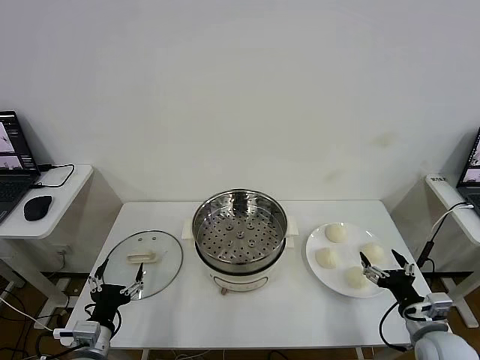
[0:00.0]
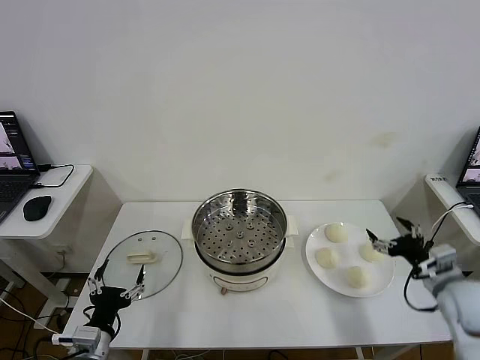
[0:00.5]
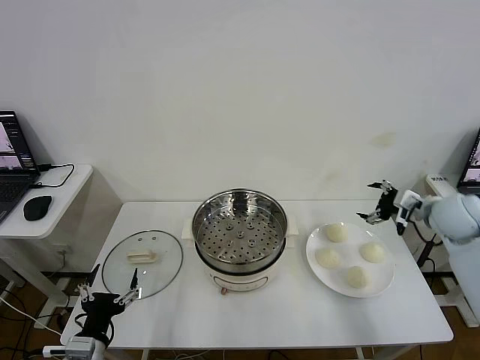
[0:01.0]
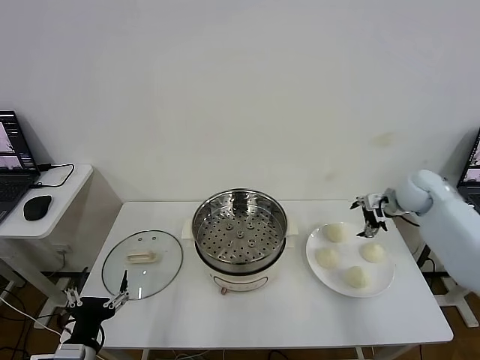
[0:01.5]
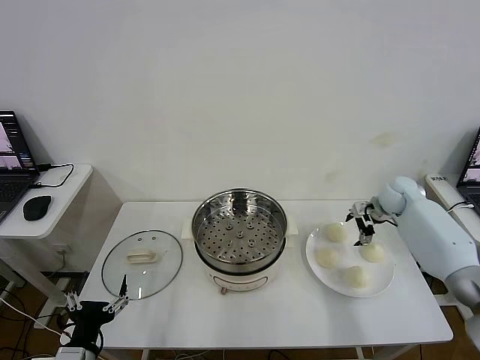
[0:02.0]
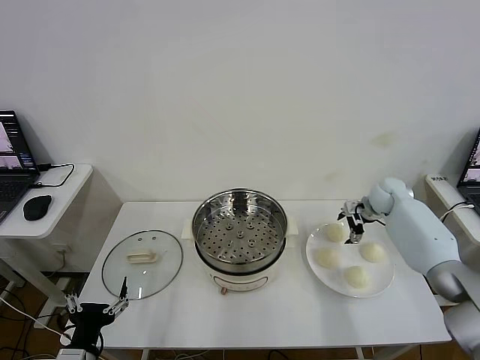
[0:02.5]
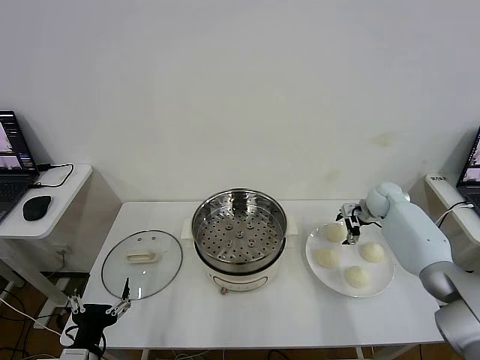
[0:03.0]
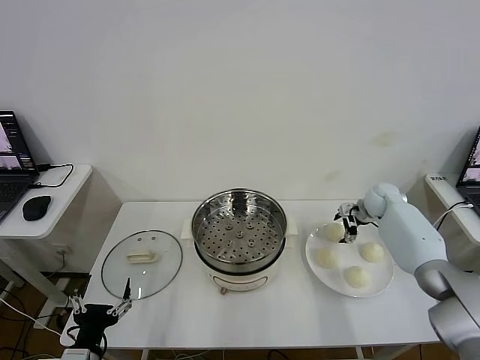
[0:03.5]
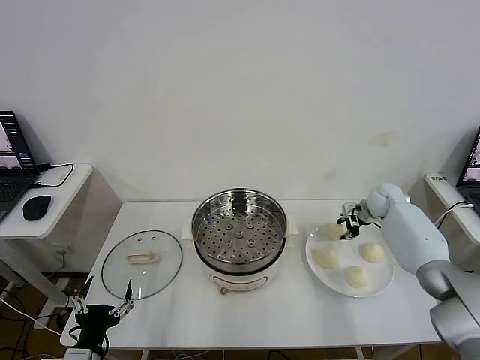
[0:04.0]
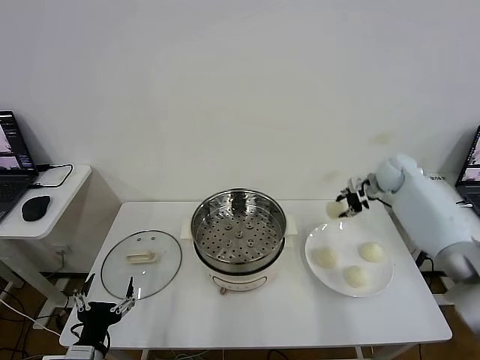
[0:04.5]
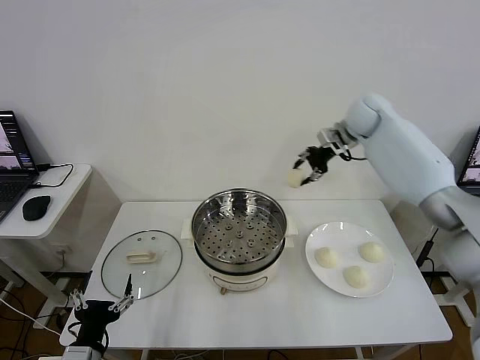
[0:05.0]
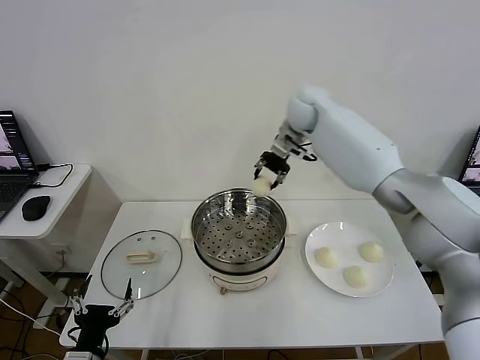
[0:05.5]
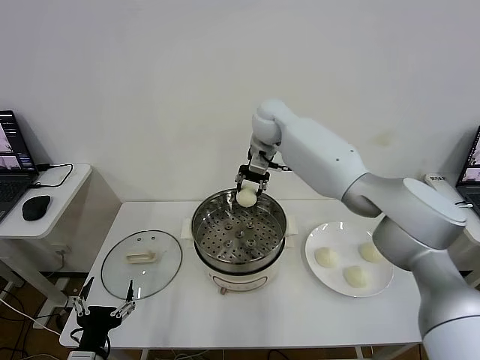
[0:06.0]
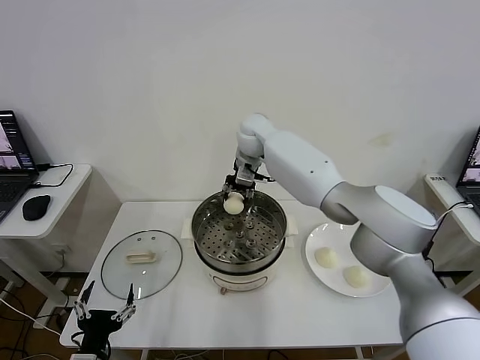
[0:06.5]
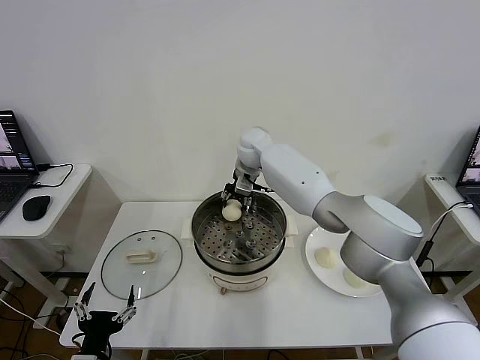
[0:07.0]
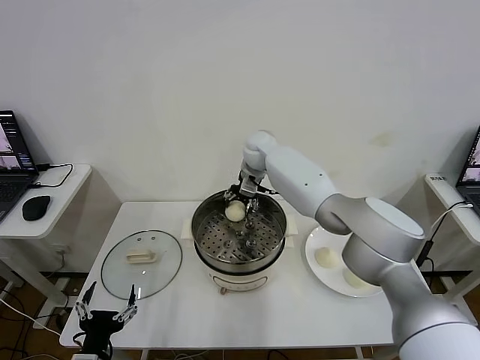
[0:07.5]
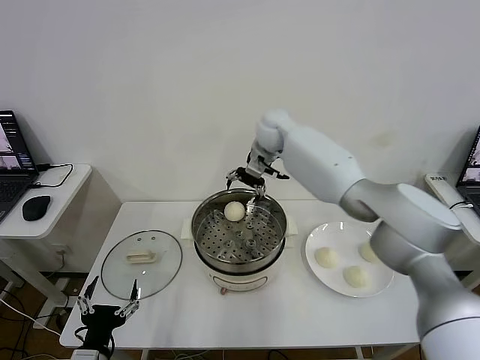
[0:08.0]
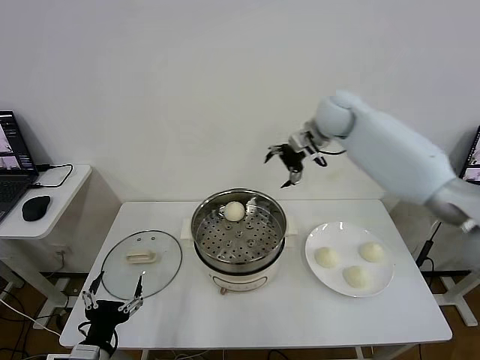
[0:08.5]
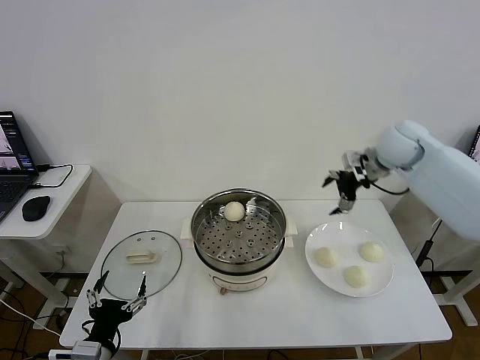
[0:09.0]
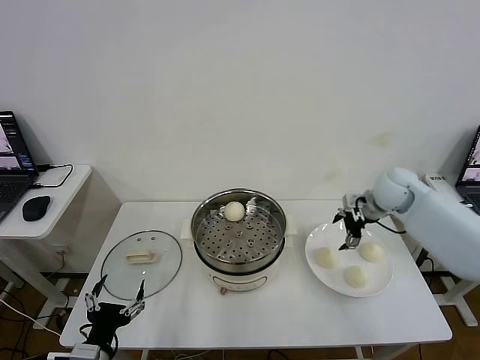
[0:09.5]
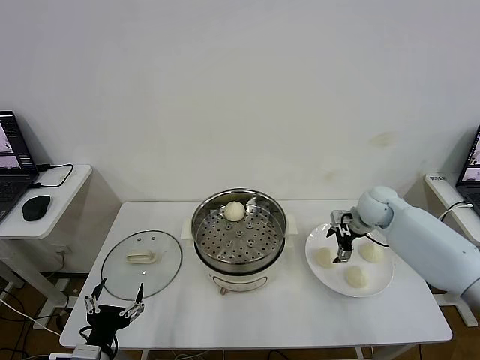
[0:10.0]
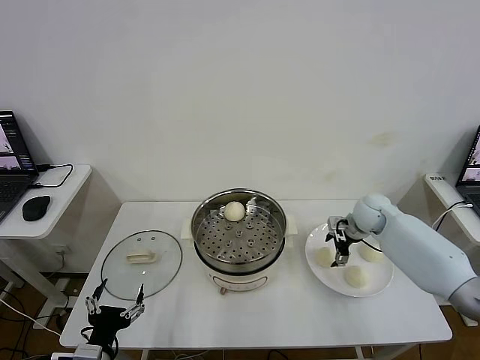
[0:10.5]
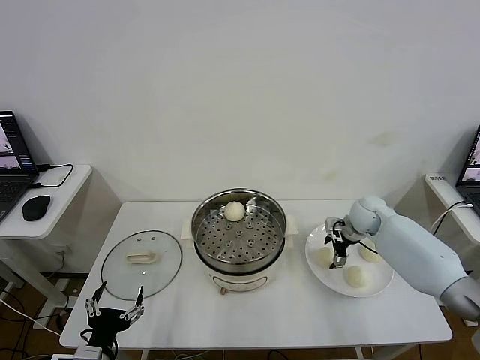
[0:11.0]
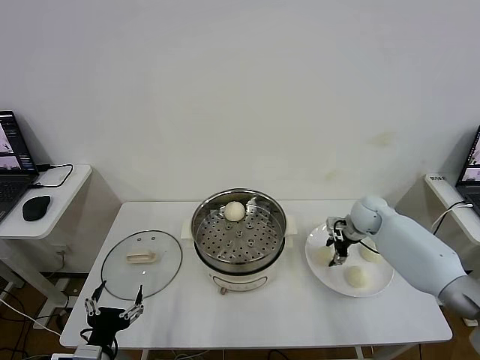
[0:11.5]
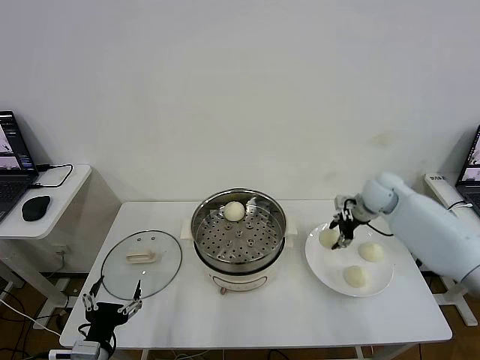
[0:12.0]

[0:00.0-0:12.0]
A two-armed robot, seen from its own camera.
Step, 0:00.0 to 0:03.5: Grasp the baozi in the plate with right gripper.
Step, 0:04.0 to 0:07.5: Place the baozi on the steamer with right gripper.
Step, 0:08.0 to 0:11.5: Grasp the baozi in the plate with right gripper.
0:02.0 to 0:04.0: The right gripper closes up.
0:04.0 to 0:06.0: The right gripper shifts some 40 cm to the left and upward.
0:06.0 to 0:08.0: The right gripper is displaced to the right by about 5 cm, goes downward and returns, about 5 cm each way, and opens its fingers.
0:08.0 to 0:10.0: The right gripper is displaced to the right, downward and backward by some 30 cm.
0:10.0 to 0:12.0: The right gripper heads upward, covering roughly 10 cm, and closes.

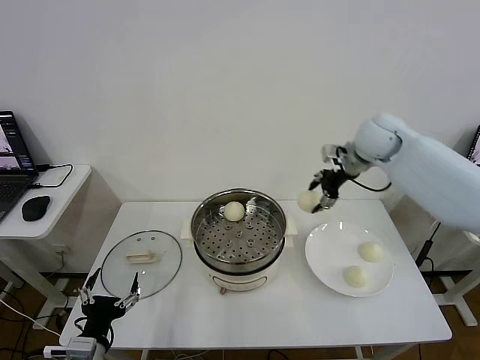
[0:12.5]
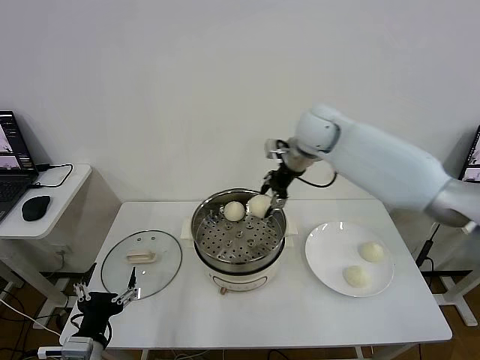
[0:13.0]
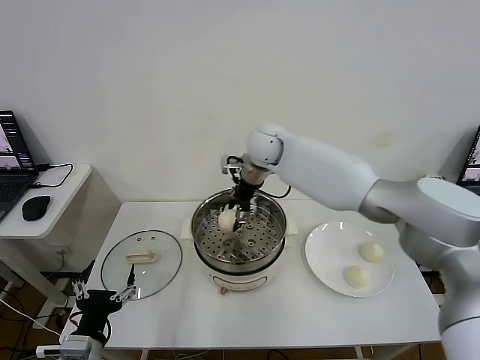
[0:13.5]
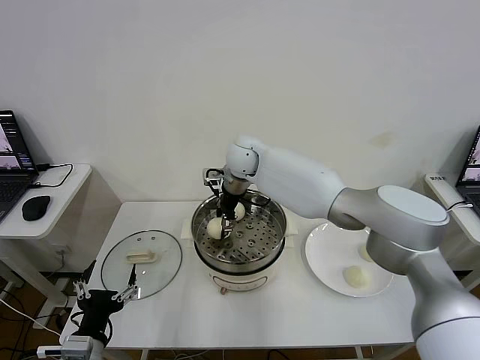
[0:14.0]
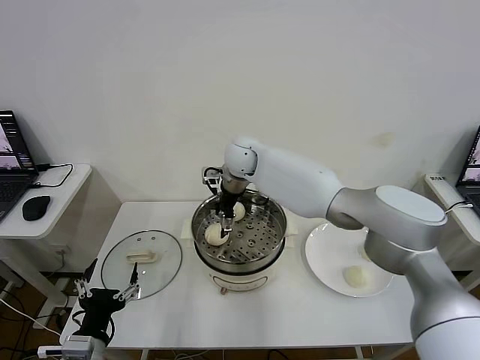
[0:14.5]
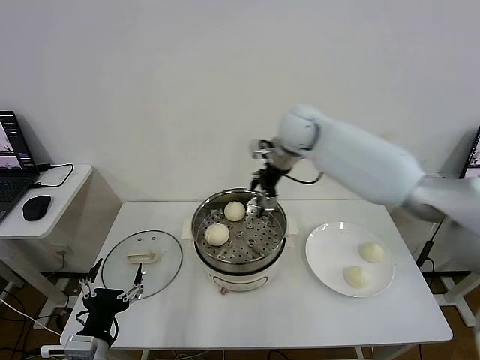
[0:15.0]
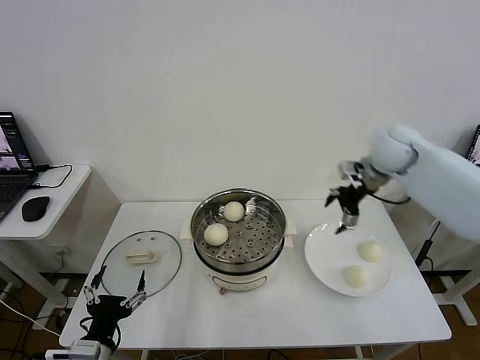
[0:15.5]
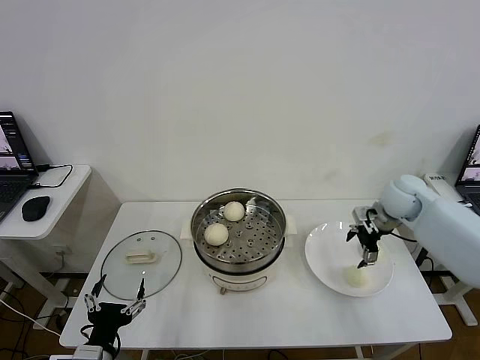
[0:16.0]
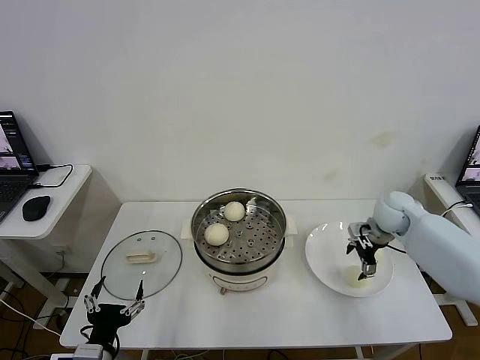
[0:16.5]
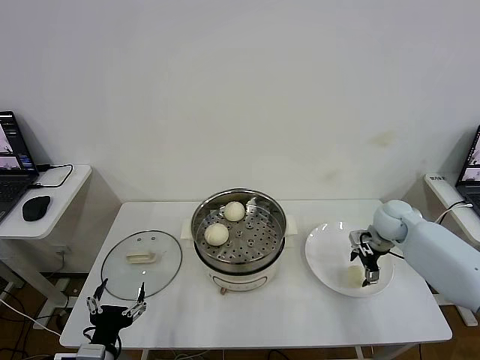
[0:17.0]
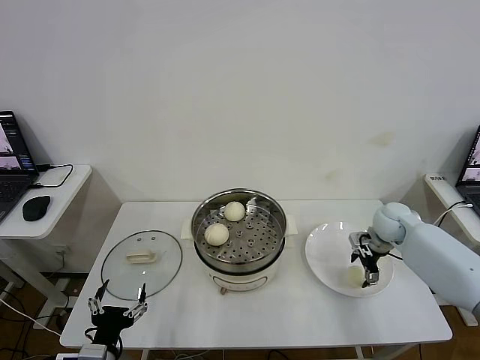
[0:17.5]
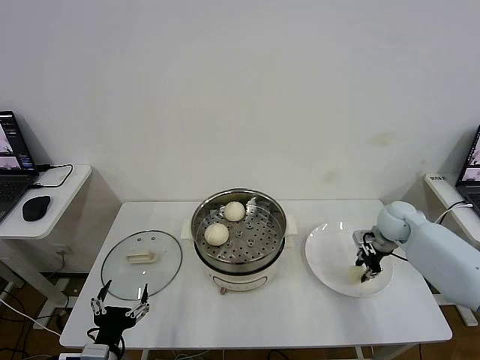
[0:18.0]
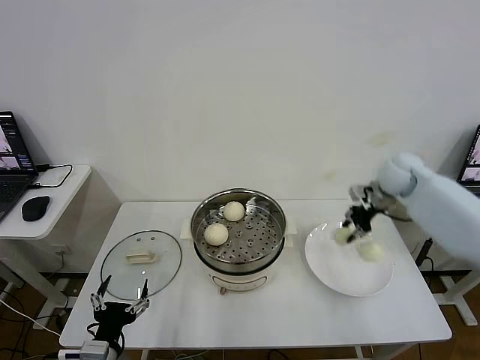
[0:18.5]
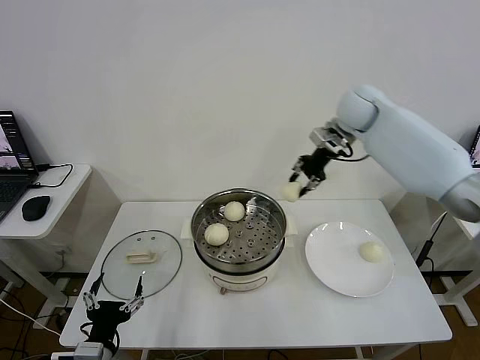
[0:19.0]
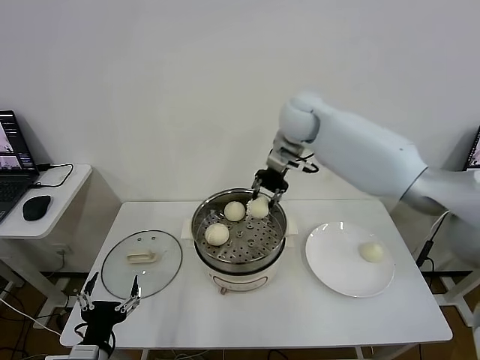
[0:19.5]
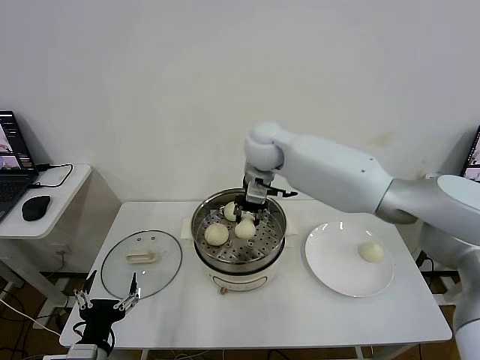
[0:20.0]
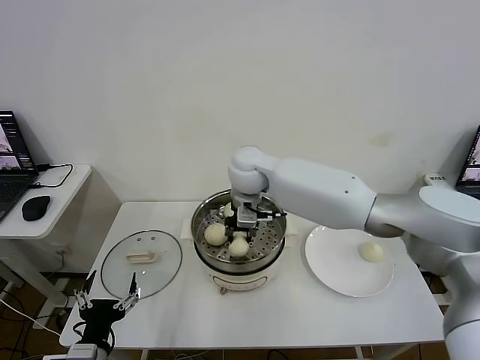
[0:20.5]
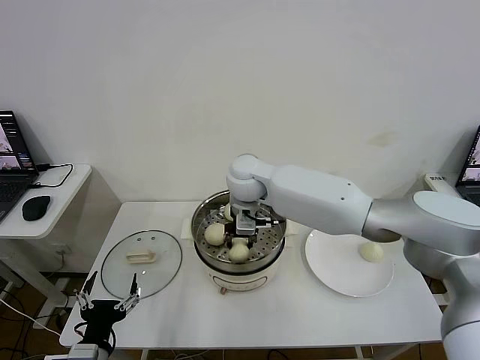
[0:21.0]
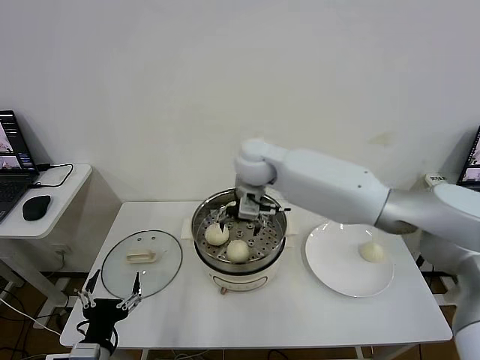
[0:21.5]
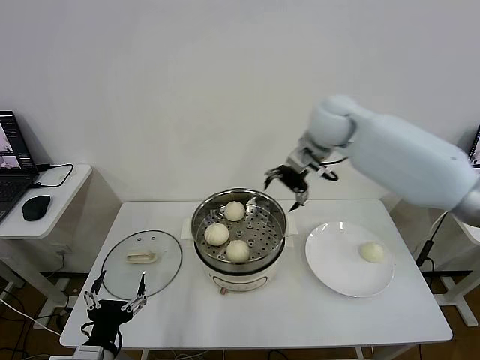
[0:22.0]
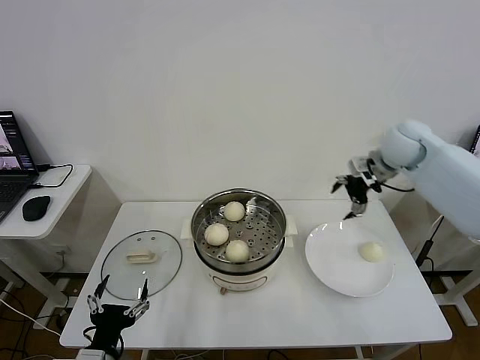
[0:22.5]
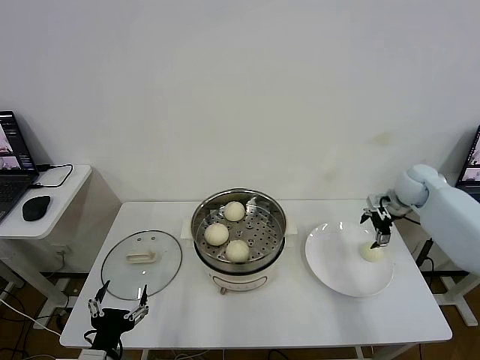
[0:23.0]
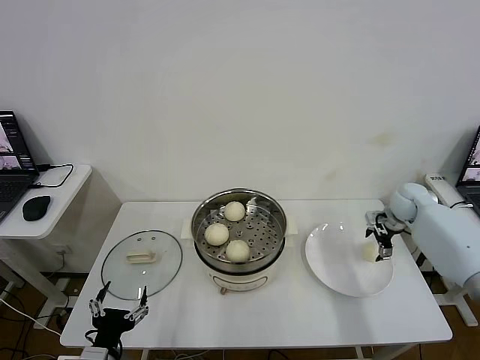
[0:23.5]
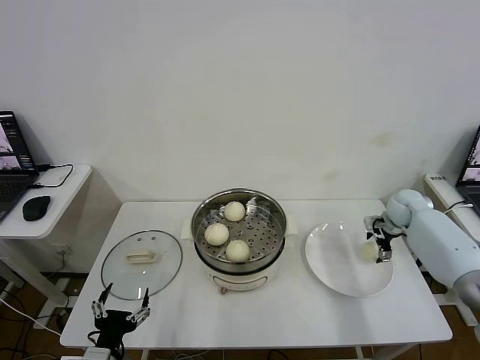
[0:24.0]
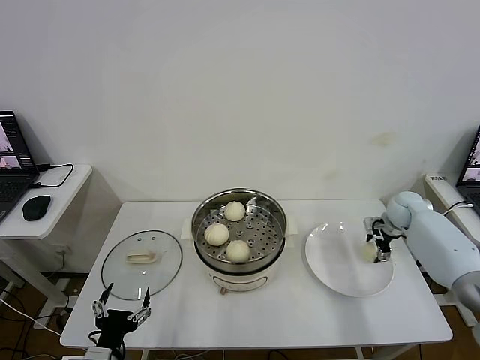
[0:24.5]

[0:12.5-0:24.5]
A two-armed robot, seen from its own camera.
Step, 0:12.5 to 0:14.0: Place the baozi on the steamer with right gripper.
Step, 0:14.5 to 0:17.5: Grasp the baozi in the plate with right gripper.
Step, 0:18.0 to 0:21.0: Place the baozi on the steamer with right gripper.
0:12.5 to 0:14.5: The right gripper heads to the left, covering approximately 25 cm, and opens up.
0:14.5 to 0:16.5: The right gripper travels to the right by roughly 35 cm.
0:16.5 to 0:18.5: The right gripper shifts roughly 15 cm upward and forward, and closes its fingers.
0:18.5 to 0:20.5: The right gripper moves to the left, approximately 35 cm.
0:20.5 to 0:22.5: The right gripper travels to the right by approximately 35 cm, and opens its fingers.
0:22.5 to 0:24.5: The right gripper goes approximately 20 cm downward and to the right.

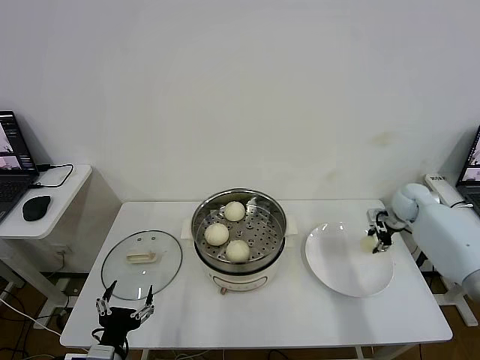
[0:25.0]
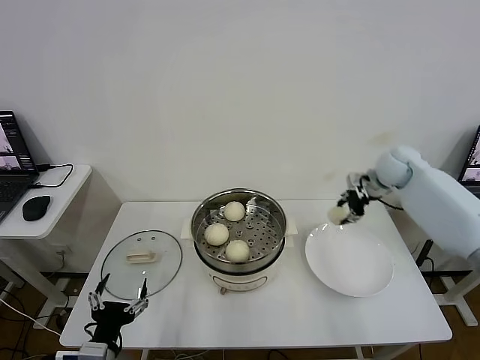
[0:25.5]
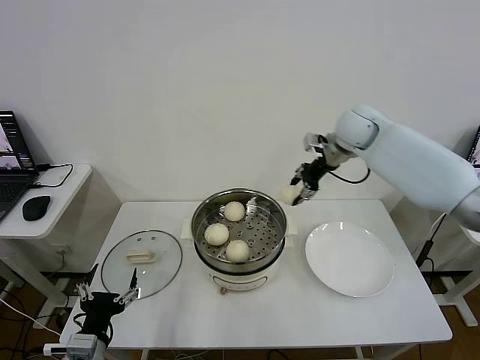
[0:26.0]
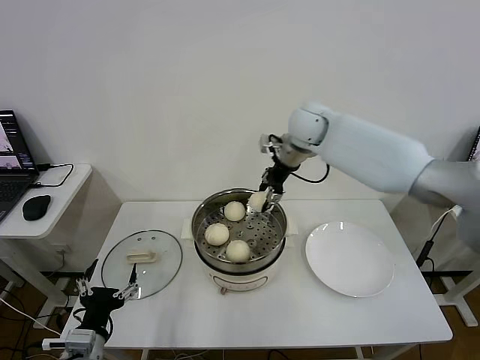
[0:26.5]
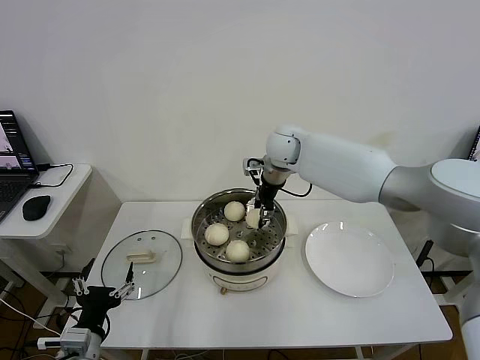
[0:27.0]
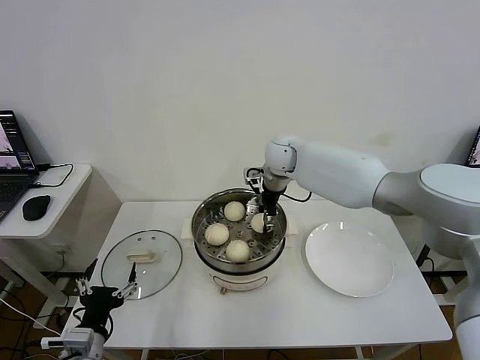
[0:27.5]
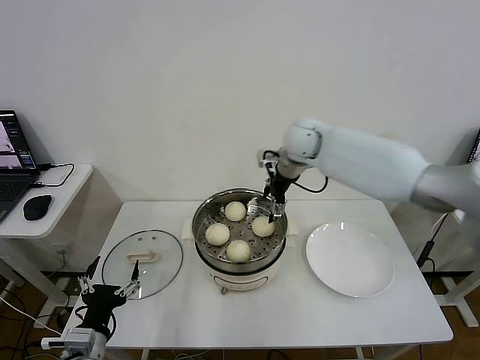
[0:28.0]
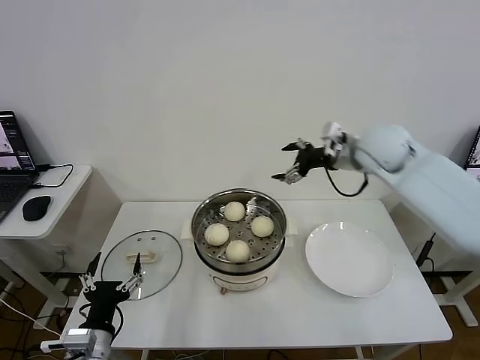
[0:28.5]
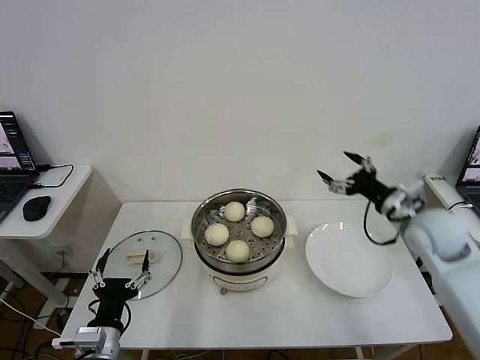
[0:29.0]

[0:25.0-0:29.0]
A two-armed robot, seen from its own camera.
Step, 0:25.0 to 0:27.5: Place the baozi on the steamer with right gripper.
0:25.0 to 0:27.0: The right gripper travels to the left by some 35 cm.
0:27.0 to 0:29.0: The right gripper goes some 35 cm to the right and backward, and opens up.
